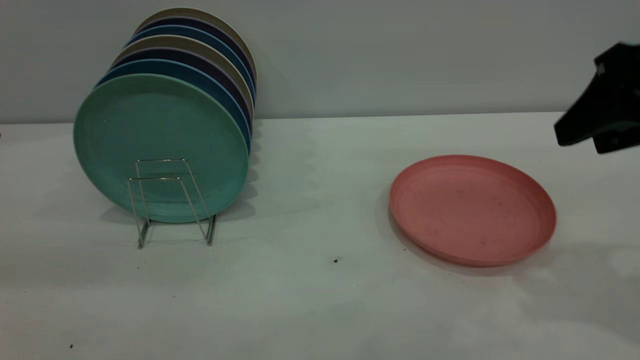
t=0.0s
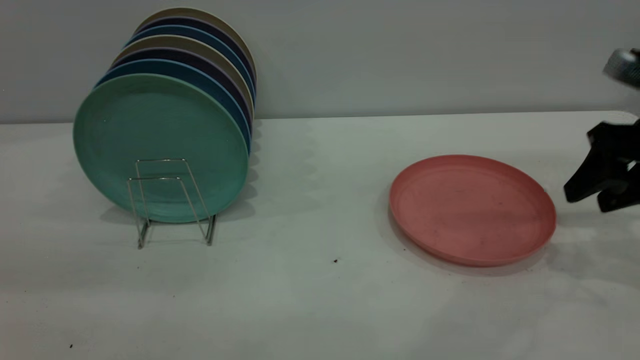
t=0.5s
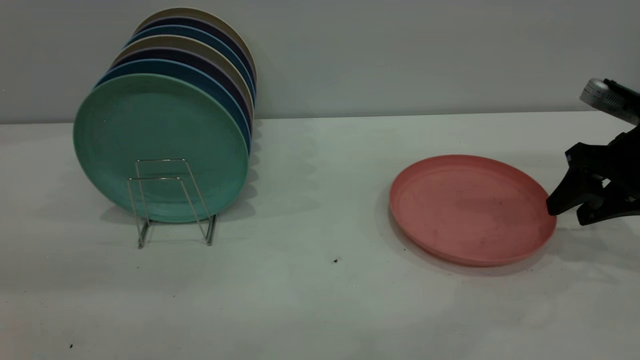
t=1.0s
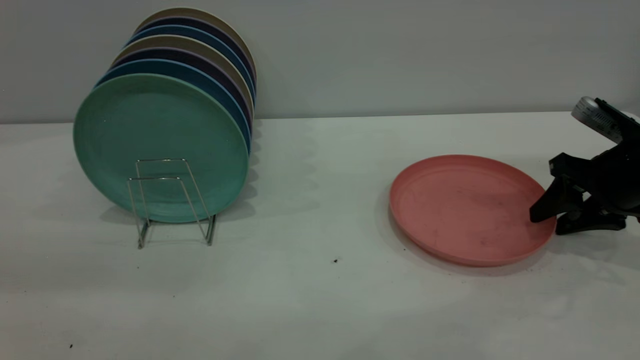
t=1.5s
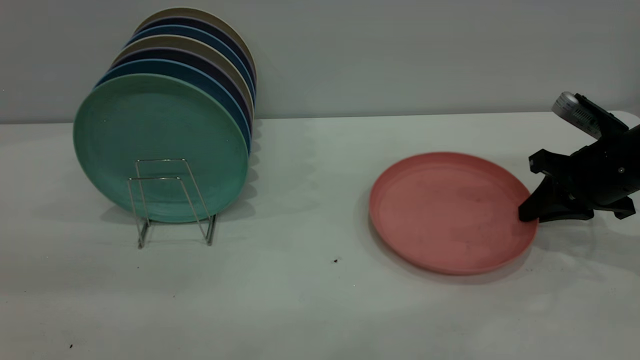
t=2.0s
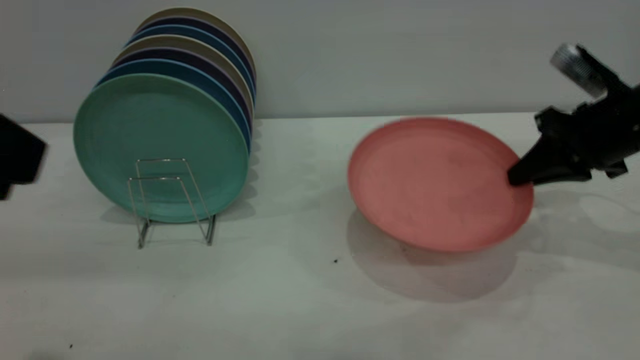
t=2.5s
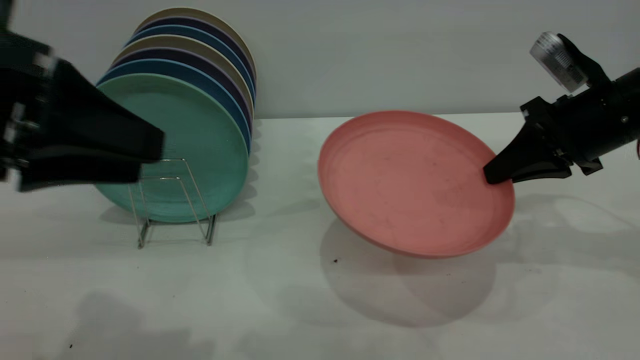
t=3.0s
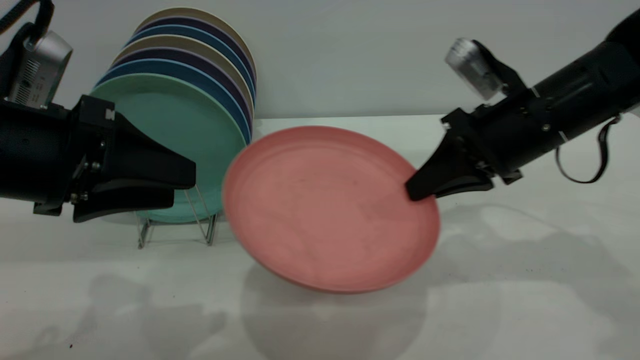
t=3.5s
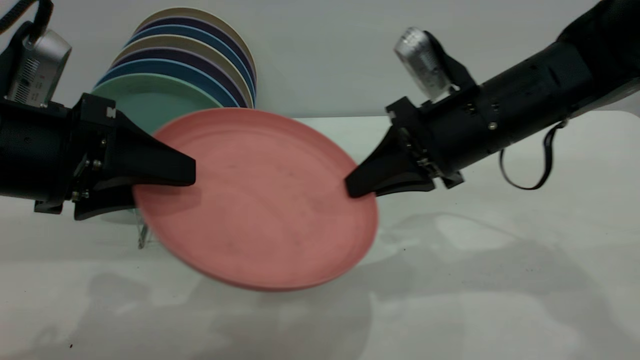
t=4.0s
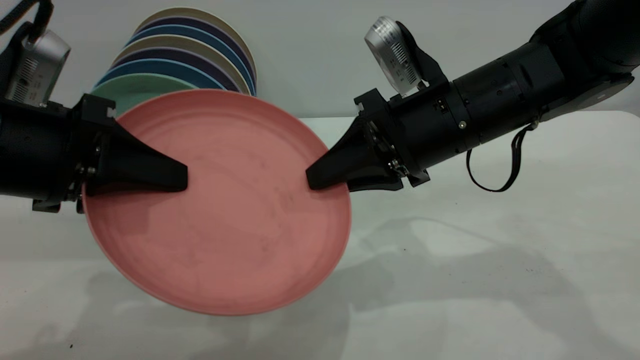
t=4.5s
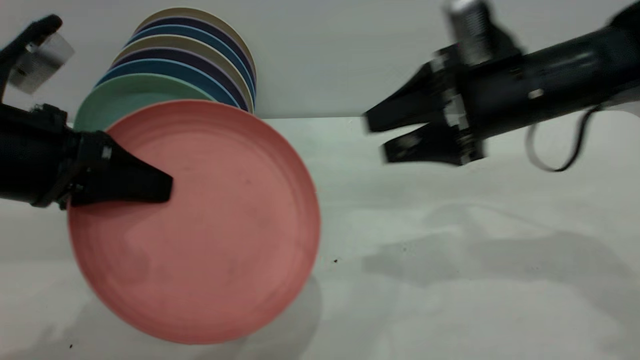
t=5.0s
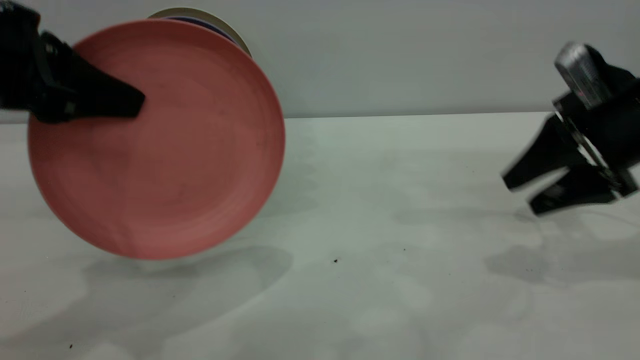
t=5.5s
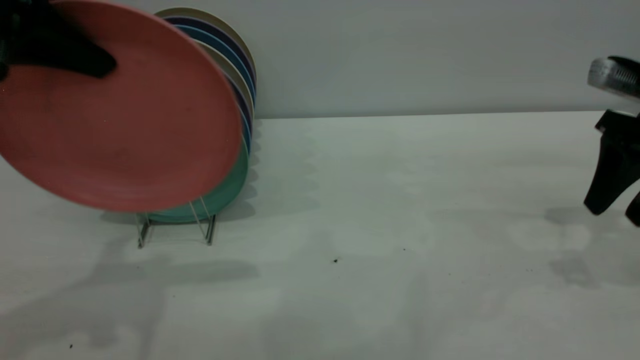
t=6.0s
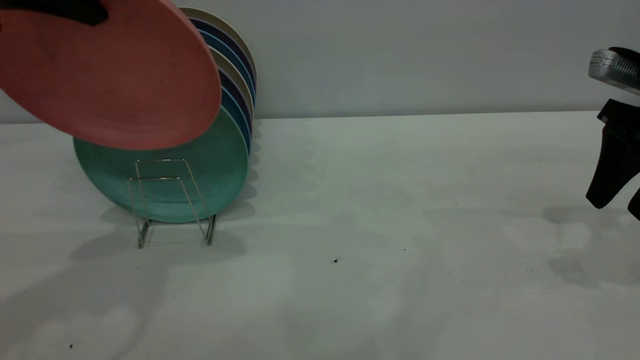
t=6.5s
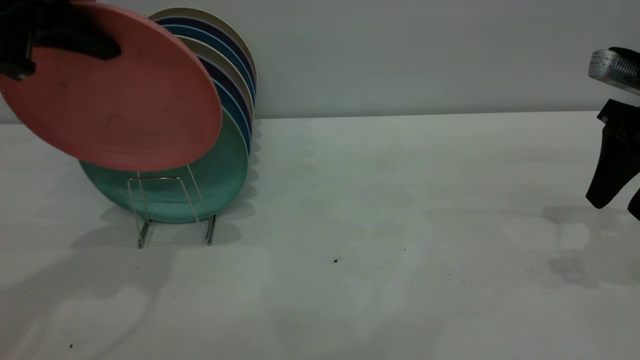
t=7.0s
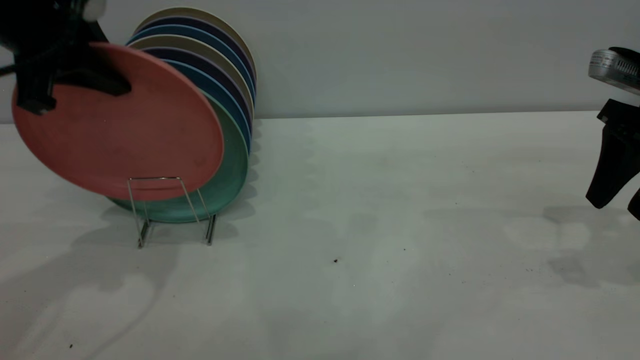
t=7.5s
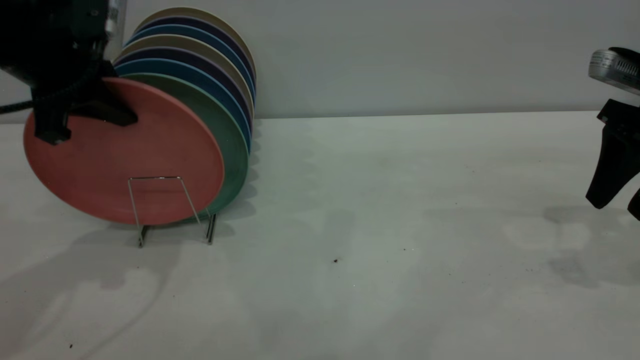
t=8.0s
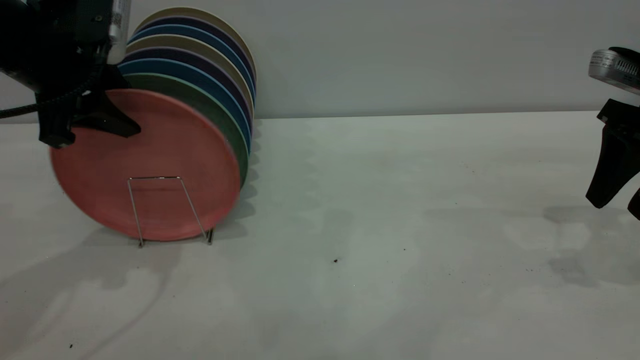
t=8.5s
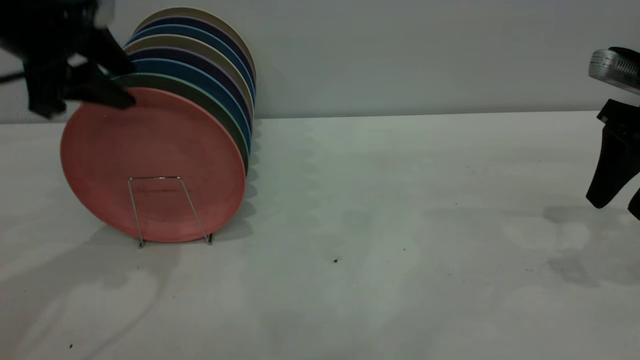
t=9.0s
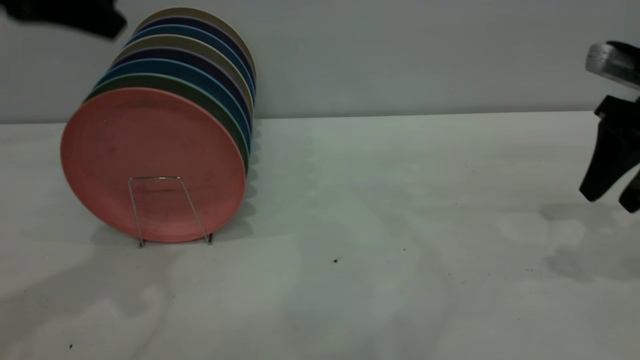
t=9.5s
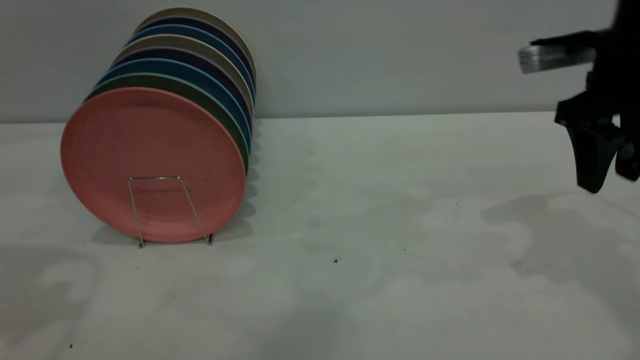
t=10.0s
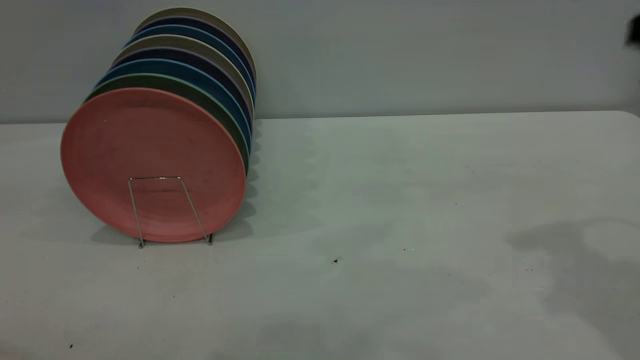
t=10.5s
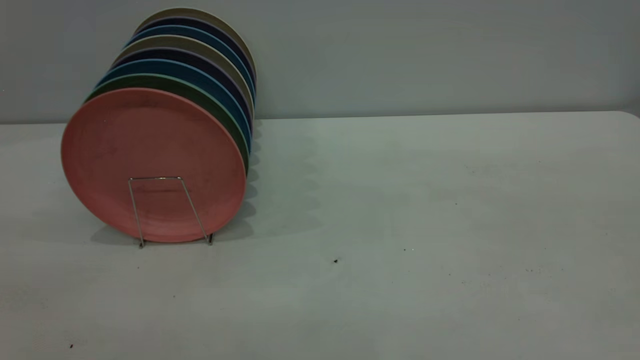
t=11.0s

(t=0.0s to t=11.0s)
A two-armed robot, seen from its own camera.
Task of the whole recording: the right gripper grasp the pink plate, the right gripper pass the pink plate to the left gripper, and the left gripper place the pink plate on the plate rack.
Step, t=0.0s - t=2.5s: Pick up the plate with the right gripper.
Step, t=3.0s - t=5.5s: Pass the plate from the right gripper to the left gripper.
Step, t=6.0s - t=9.5s: Place the plate on the shelf.
t=0.0s - t=2.0s: The right gripper is displaced downward and forward by about 20 cm, and closes up.
t=2.0s - t=3.5s: The left gripper travels downward and forward by some 15 cm. The right gripper goes approximately 15 cm to the left and upward.
t=3.5s - t=5.5s: The left gripper shifts about 5 cm upward, and closes its fingers; the right gripper travels to the right by about 10 cm, and opens its fingers.
t=5.5s - t=7.5s: The left gripper goes some 10 cm forward.
t=7.5s - t=9.0s: The left gripper opens up.
t=9.0s - t=11.0s: The right gripper heads backward and upward, covering about 35 cm. The left gripper heads backward, covering roughly 30 cm.
